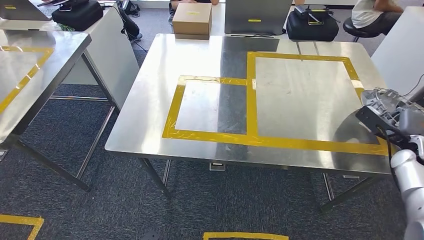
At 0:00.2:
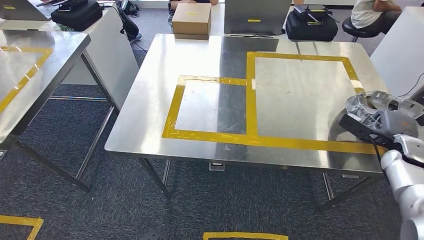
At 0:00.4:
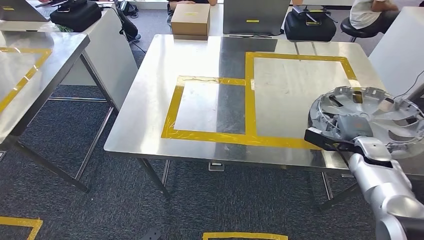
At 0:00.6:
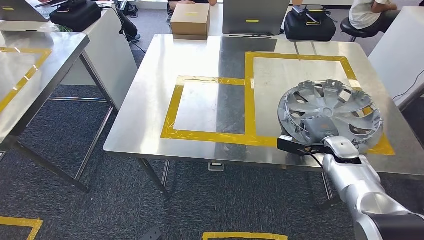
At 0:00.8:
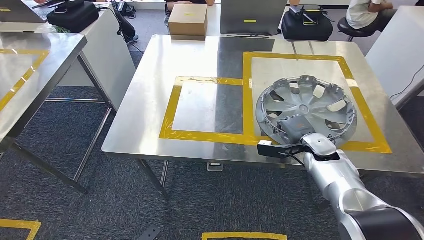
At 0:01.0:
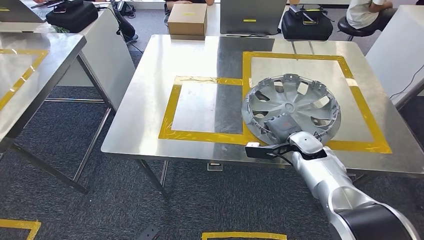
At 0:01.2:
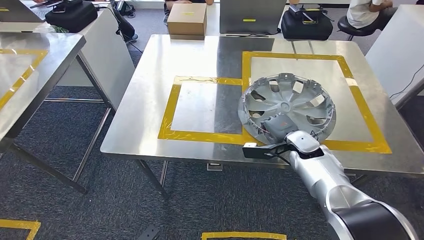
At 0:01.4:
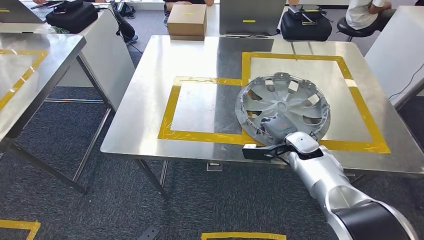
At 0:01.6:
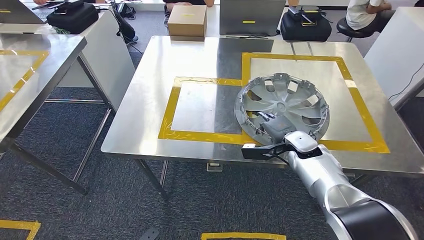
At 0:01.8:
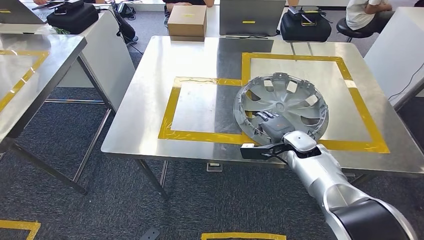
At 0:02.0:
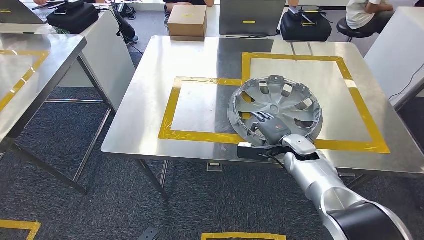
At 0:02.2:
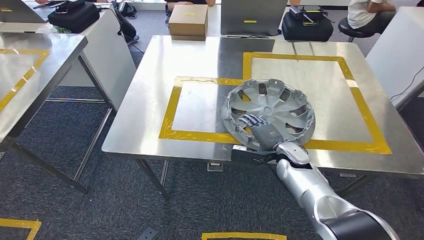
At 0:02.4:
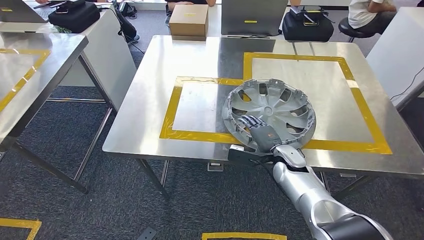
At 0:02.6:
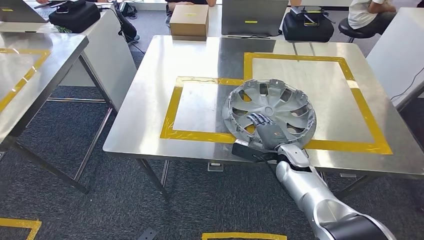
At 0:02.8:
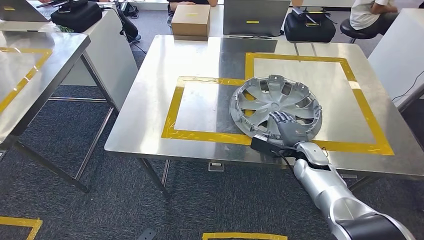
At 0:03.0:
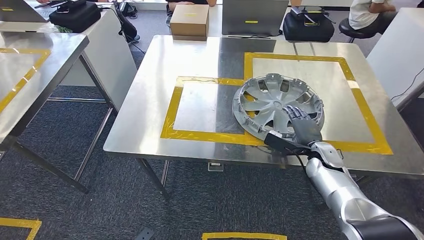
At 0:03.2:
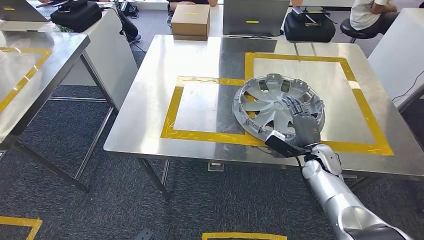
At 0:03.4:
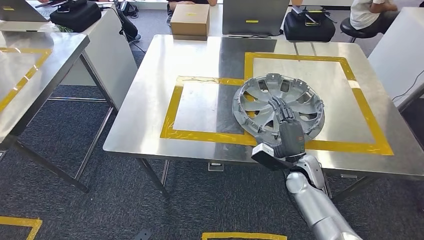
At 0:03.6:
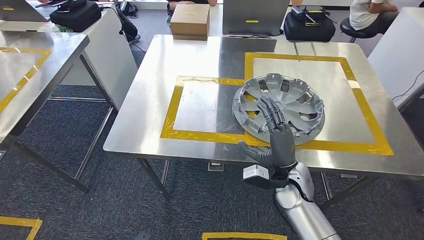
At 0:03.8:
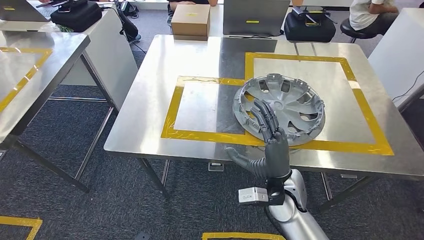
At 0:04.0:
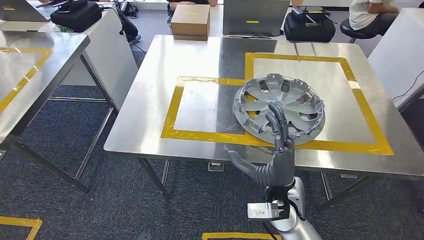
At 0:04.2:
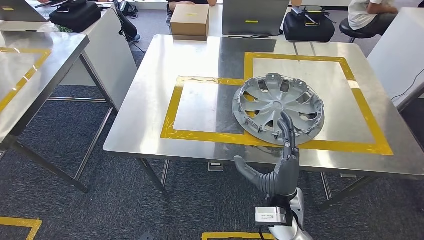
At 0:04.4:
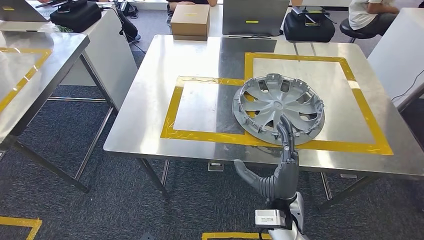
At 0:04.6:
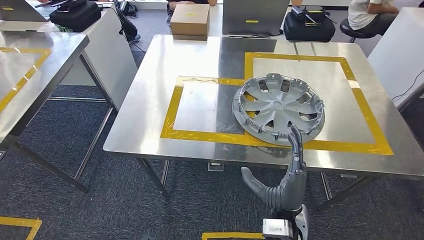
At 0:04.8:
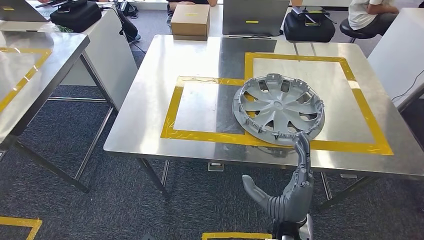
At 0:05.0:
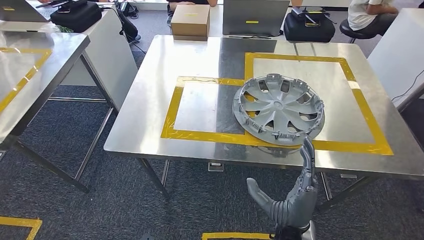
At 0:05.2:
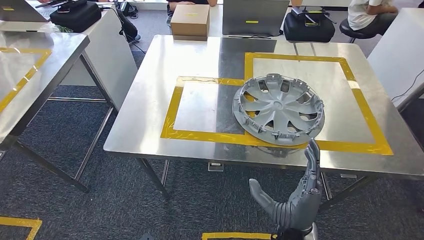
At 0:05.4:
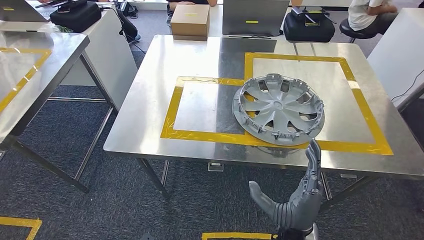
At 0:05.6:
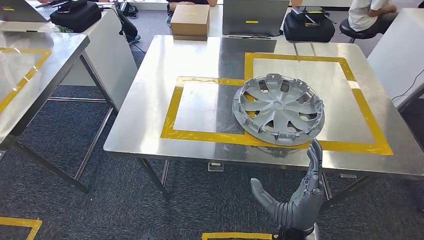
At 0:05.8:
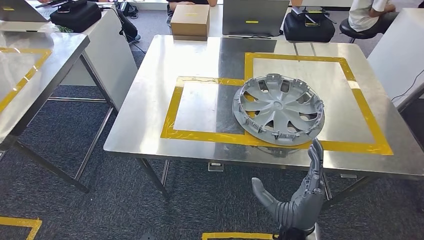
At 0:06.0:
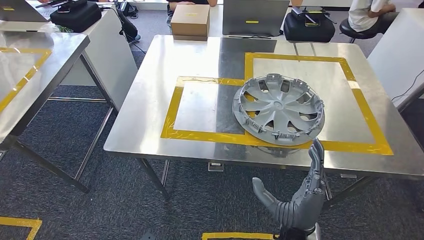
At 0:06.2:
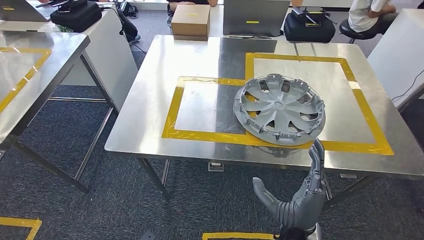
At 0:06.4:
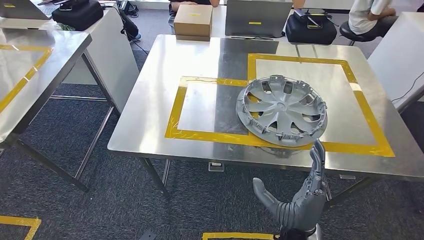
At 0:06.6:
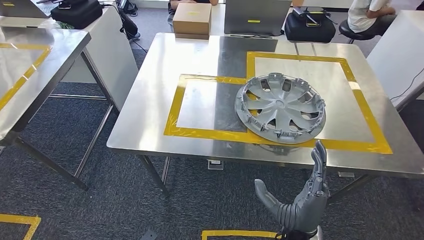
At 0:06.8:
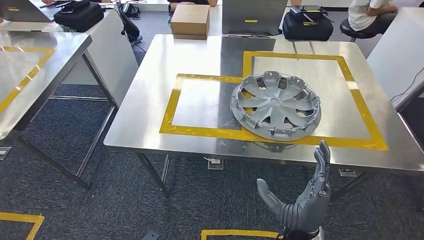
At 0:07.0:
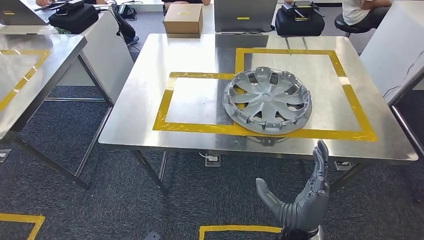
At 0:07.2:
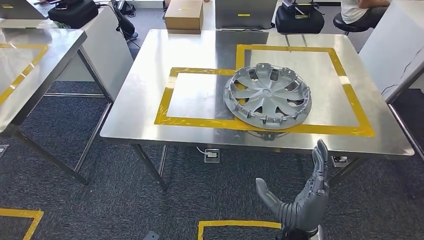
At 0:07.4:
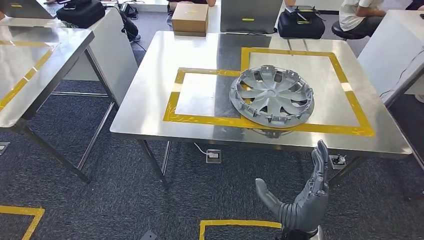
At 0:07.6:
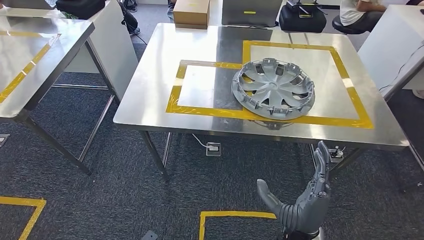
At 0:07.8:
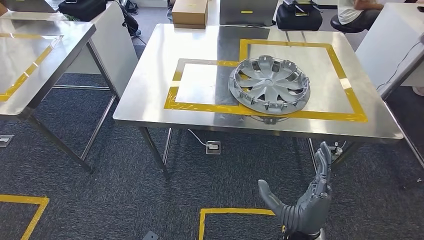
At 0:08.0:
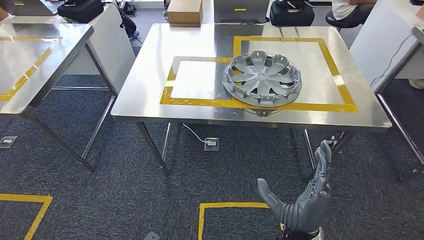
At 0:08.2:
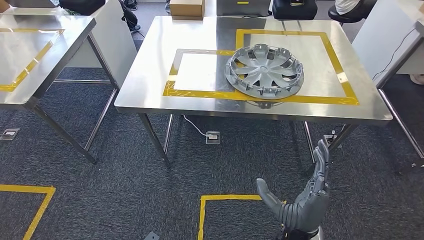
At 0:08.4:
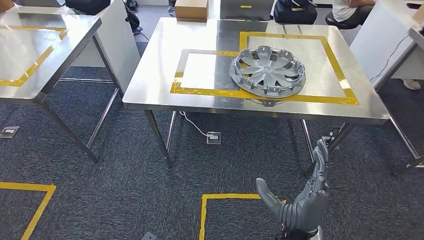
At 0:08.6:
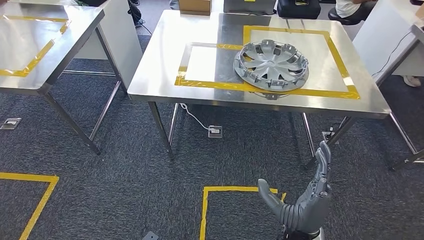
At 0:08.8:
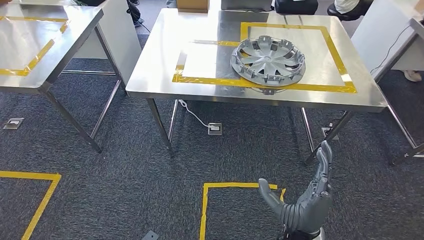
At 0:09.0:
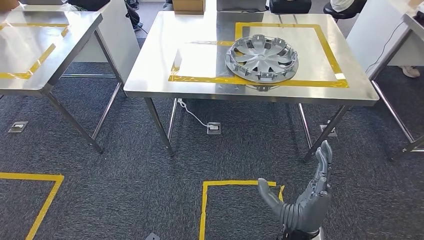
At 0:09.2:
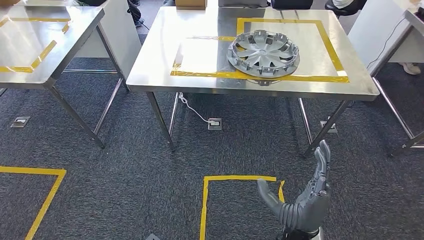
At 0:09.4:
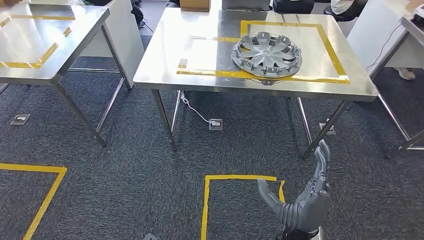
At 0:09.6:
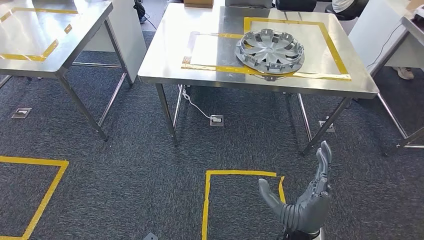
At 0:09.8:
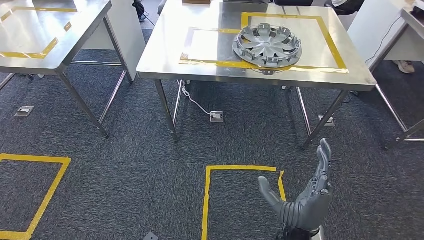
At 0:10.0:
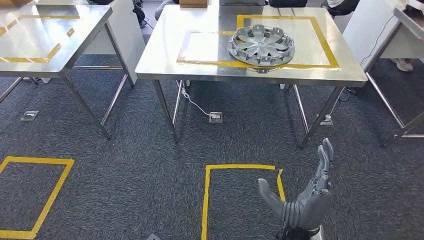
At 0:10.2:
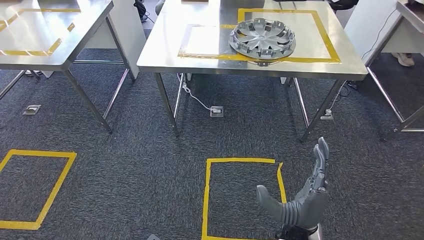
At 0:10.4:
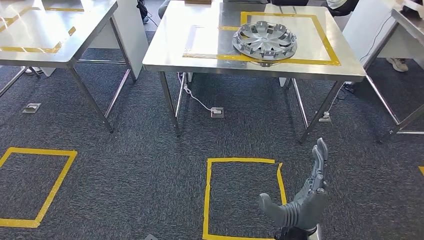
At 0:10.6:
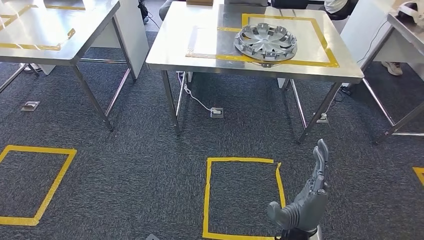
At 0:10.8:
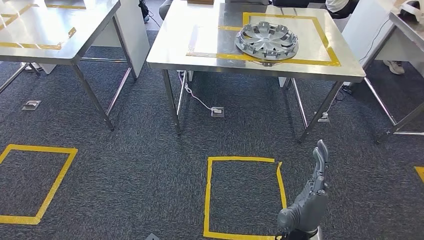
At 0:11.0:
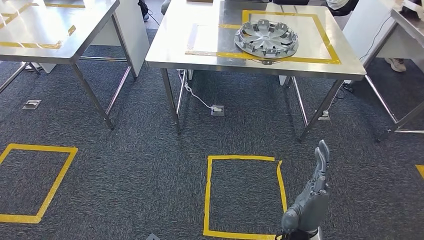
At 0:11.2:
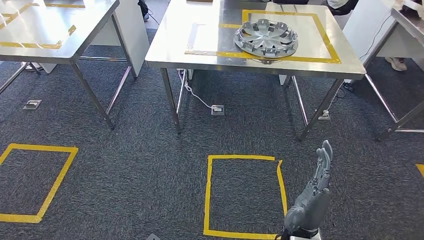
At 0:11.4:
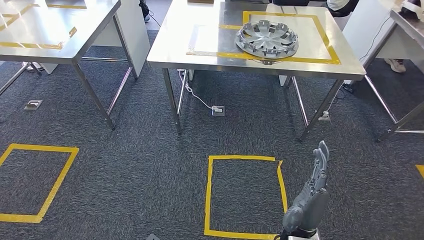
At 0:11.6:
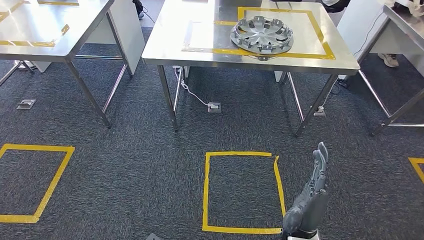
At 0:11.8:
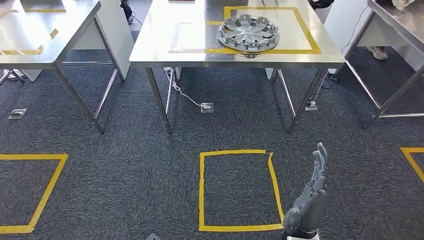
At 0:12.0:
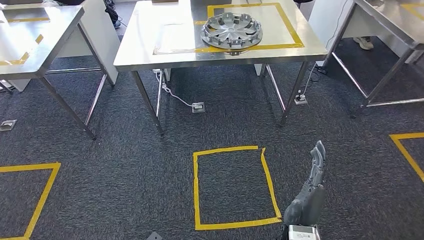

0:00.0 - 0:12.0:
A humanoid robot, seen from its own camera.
Step, 0:00.0 - 0:05.2: Insert the small parts into the corresponding holes on the workbench.
0:01.6 - 0:03.0: The right hand goes some 5 cm to the right.
0:03.0 - 0:04.4: The right hand shifts about 20 cm backward and to the left.
0:04.4 - 0:06.0: The right hand goes approximately 5 cm backward.

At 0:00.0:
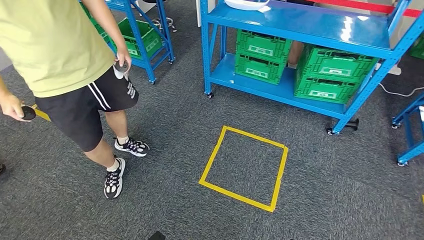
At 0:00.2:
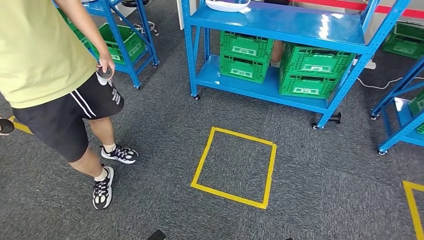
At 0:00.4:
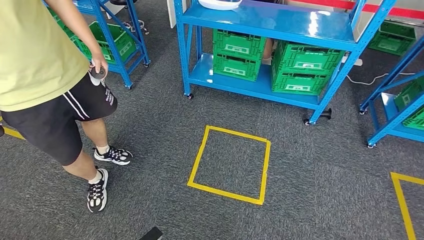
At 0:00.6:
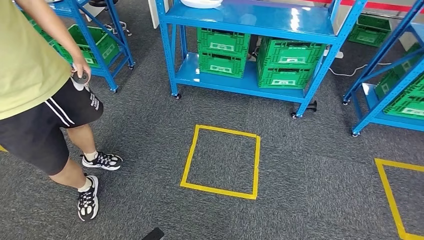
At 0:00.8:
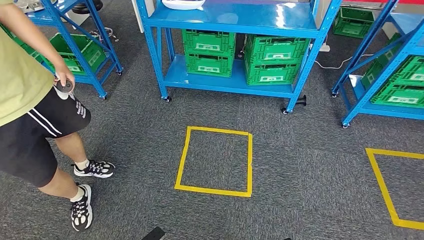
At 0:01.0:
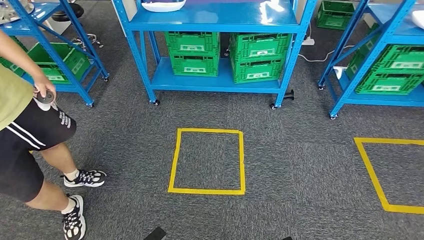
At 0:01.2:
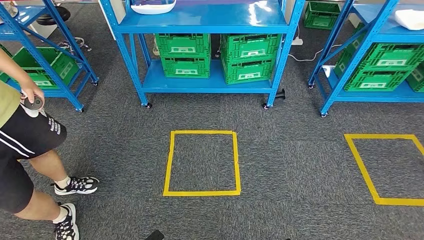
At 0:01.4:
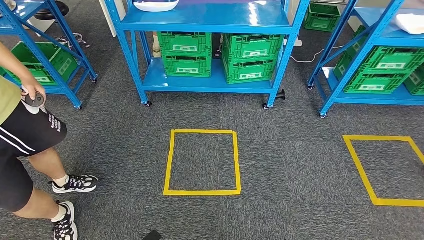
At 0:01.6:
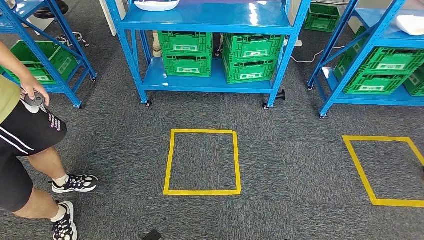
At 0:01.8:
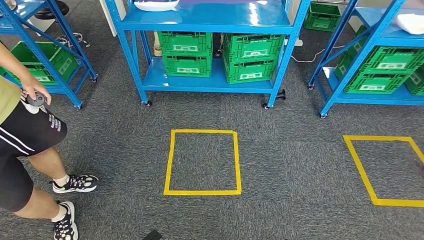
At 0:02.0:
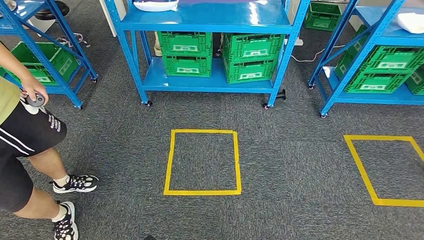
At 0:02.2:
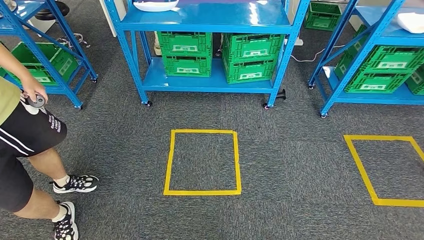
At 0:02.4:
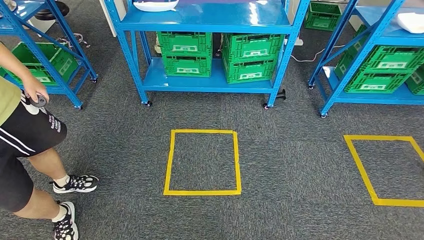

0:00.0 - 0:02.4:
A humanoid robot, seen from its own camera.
Step, 0:00.0 - 0:02.4: Move to the initial position at the workbench.
0:01.2 - 0:02.4: The two hands go roughly 5 cm backward.
